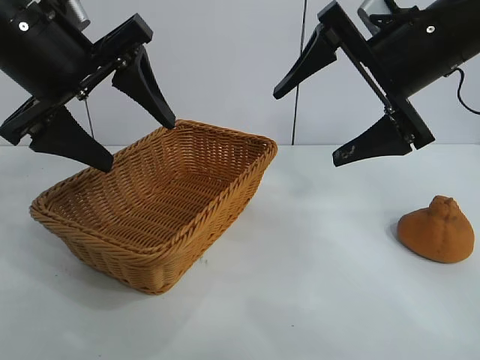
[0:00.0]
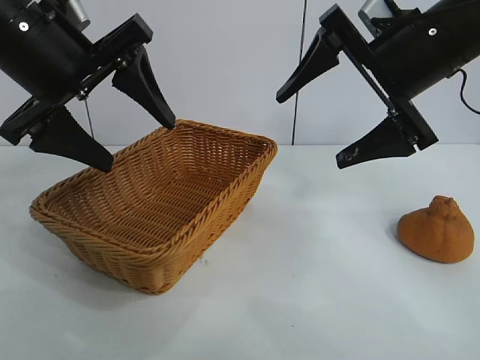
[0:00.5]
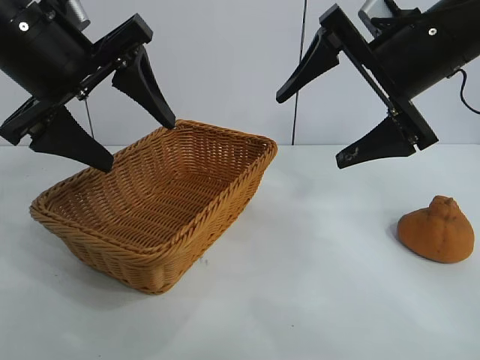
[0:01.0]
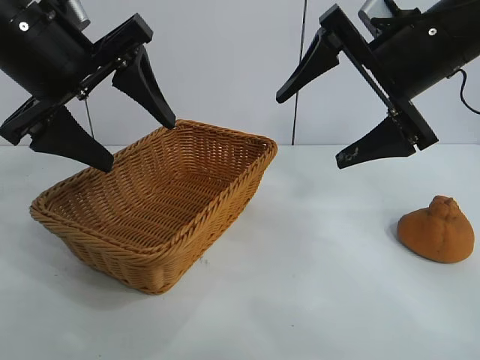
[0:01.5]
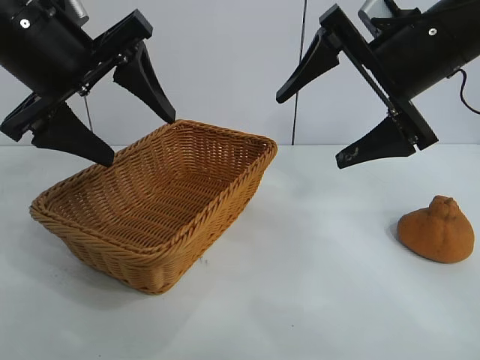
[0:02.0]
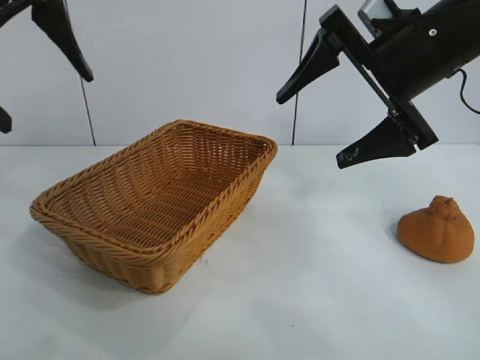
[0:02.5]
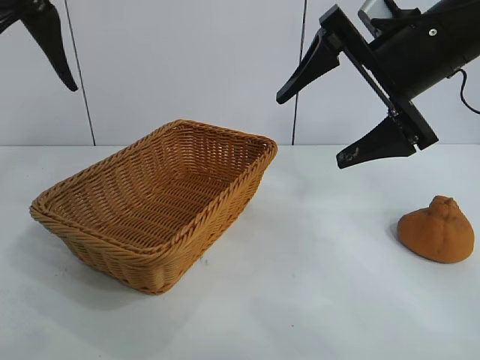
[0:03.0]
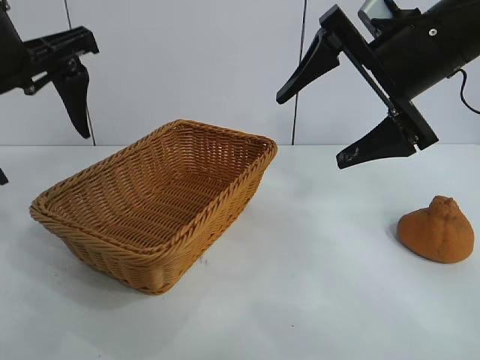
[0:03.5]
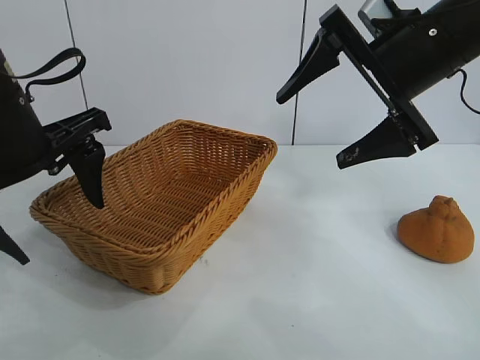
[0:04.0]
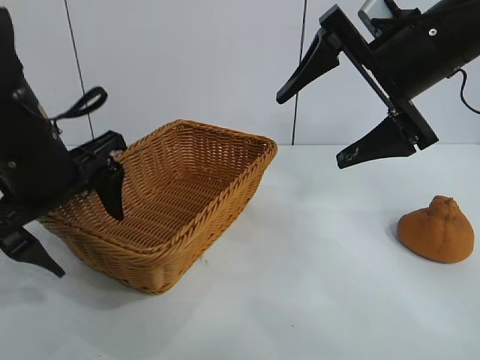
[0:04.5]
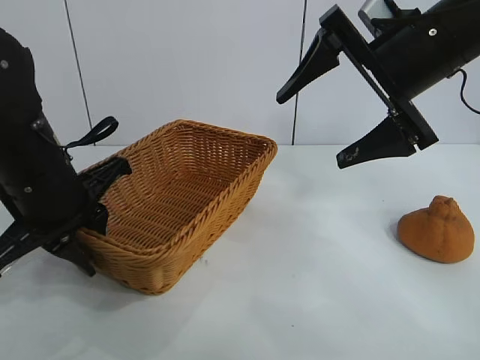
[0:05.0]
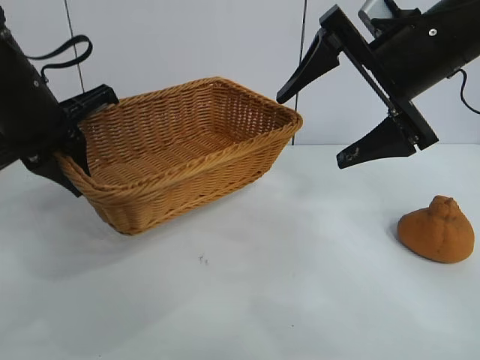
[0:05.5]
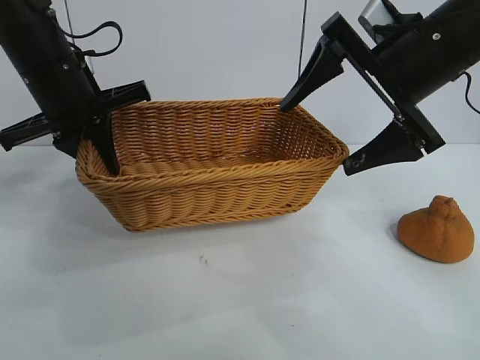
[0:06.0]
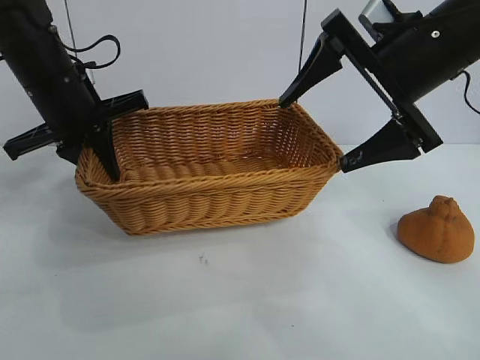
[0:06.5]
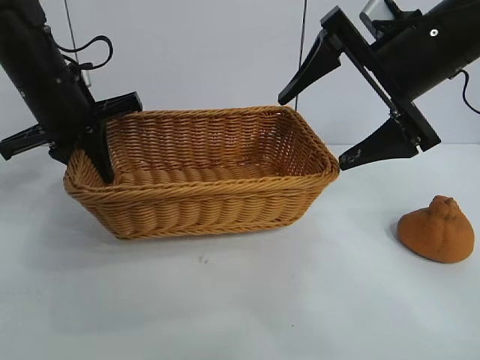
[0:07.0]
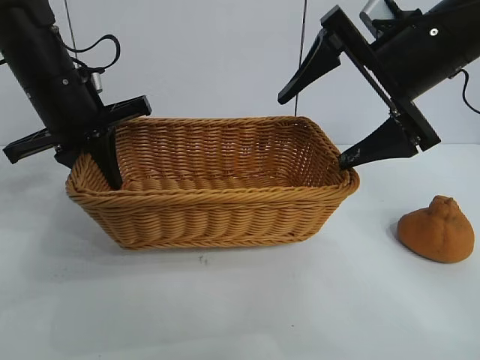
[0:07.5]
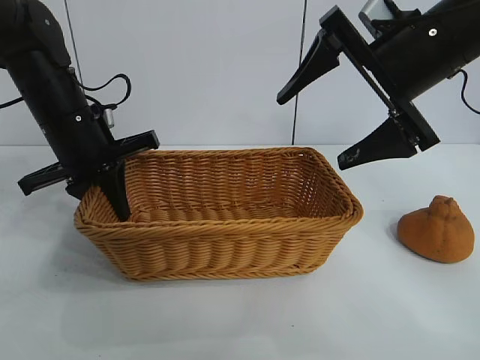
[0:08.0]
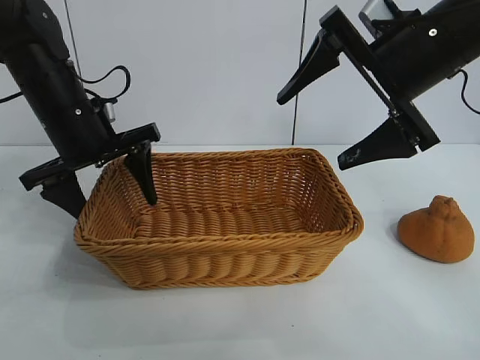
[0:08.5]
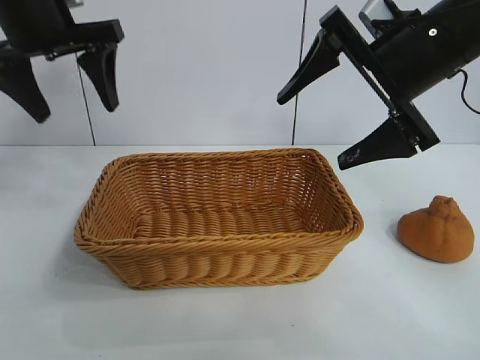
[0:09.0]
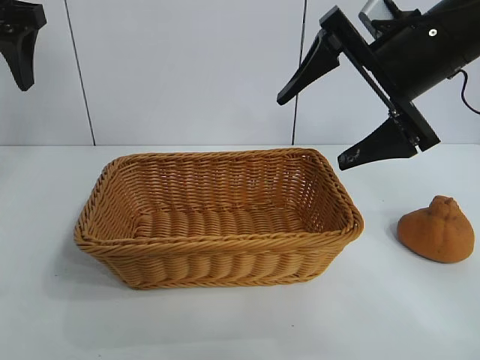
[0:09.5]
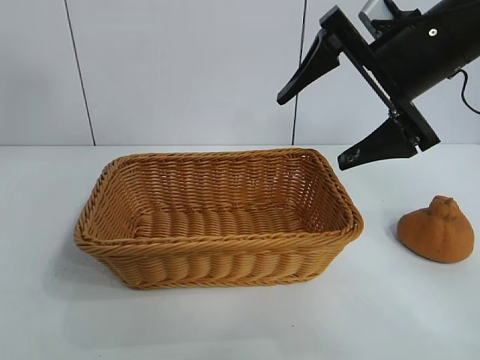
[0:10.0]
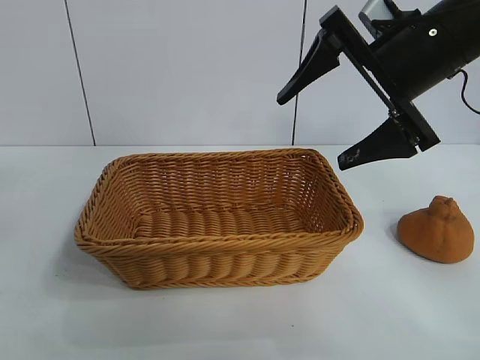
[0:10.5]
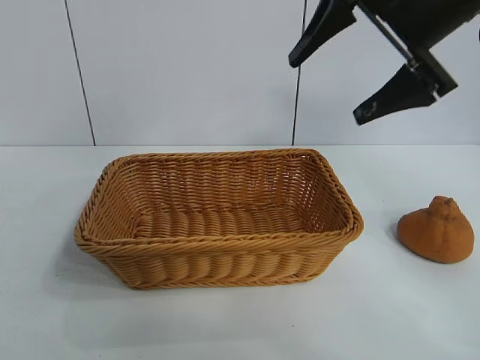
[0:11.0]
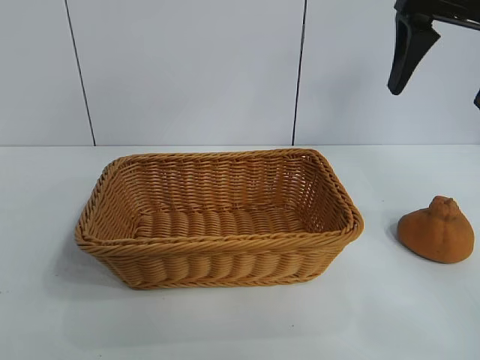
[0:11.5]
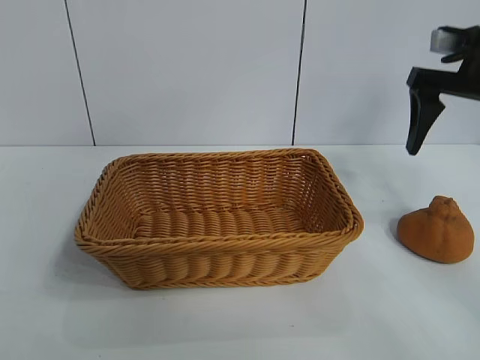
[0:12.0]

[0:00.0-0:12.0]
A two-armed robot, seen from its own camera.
Task of the whole recording: pick up the orange and put it into the basket.
Step, 0:00.0 to 0:05.0: Grasp the basket with left gripper.
Step, 0:05.5 to 0:08.5: Place the basket in the center of view with left gripper.

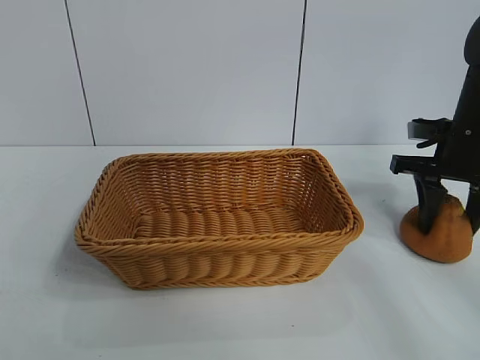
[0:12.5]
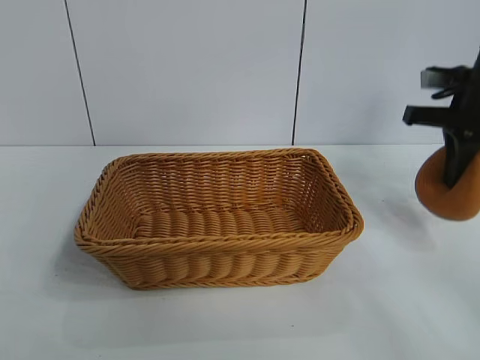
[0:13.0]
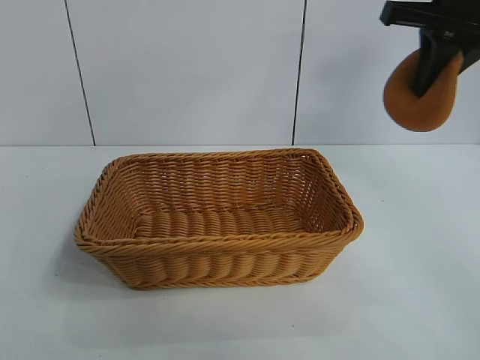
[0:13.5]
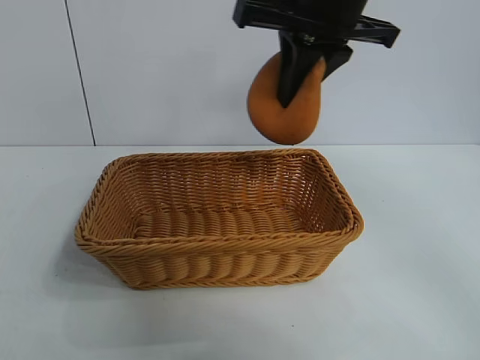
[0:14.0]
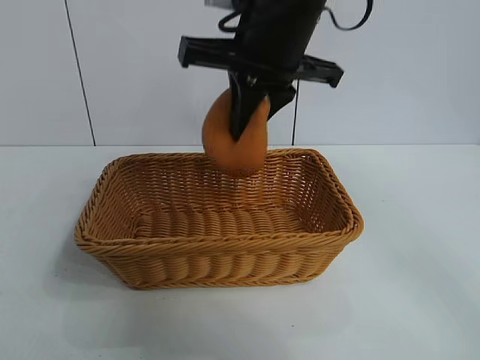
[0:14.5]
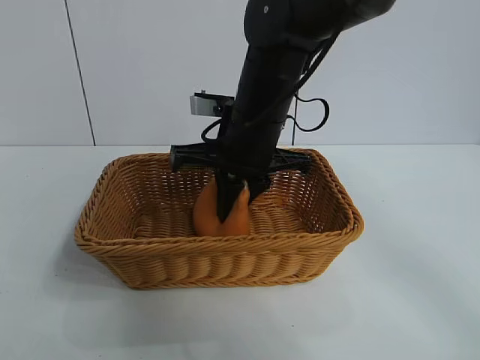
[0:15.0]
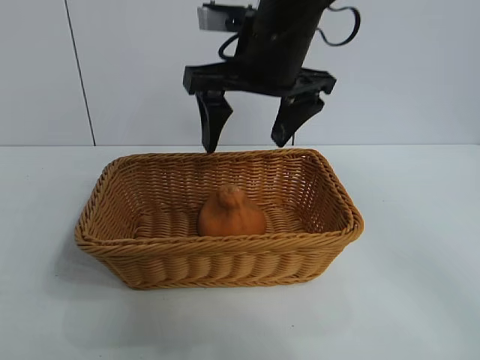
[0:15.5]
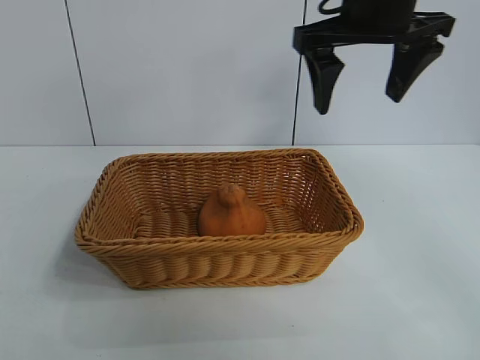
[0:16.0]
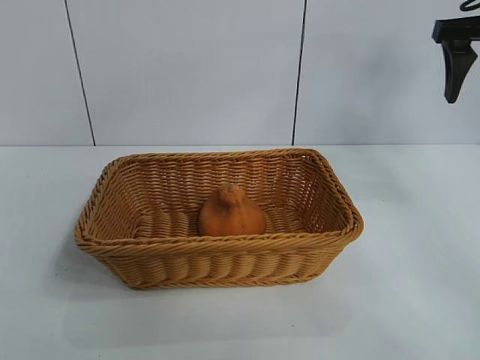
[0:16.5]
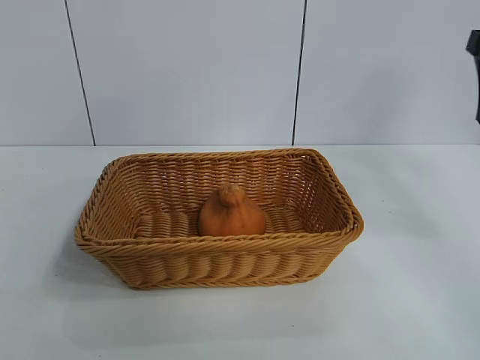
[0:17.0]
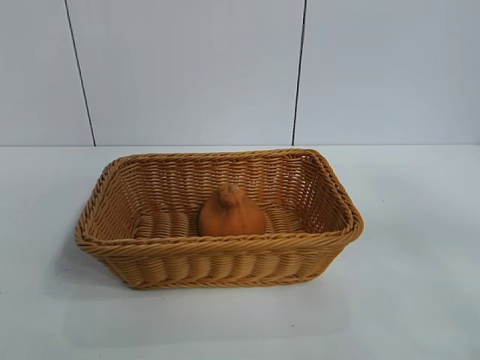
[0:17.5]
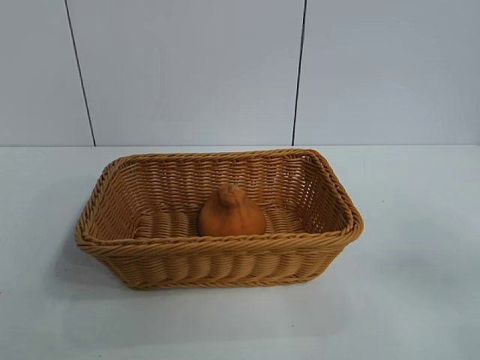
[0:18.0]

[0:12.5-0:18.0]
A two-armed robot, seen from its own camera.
Task of the whole recording: pick up the orange and put it into the basket.
Step, 0:13.0 to 0:15.0: Place the orange in the basket with right gripper.
